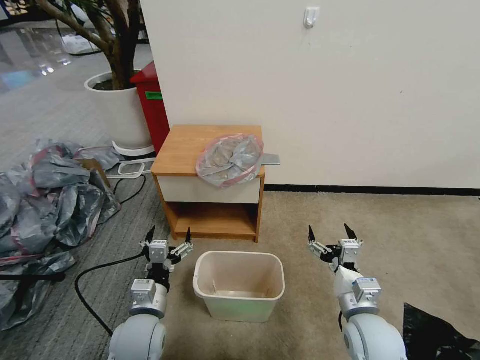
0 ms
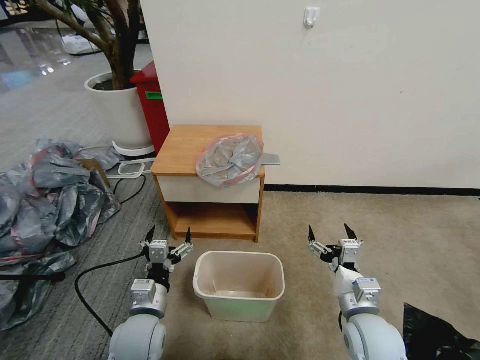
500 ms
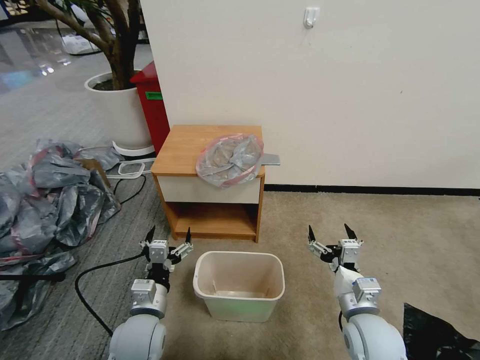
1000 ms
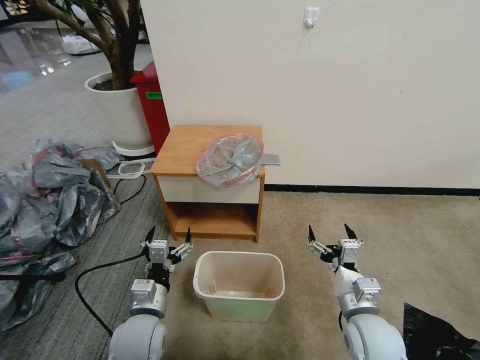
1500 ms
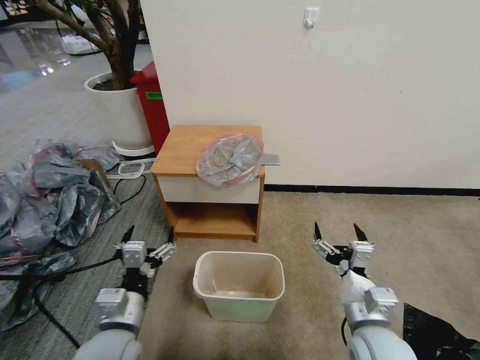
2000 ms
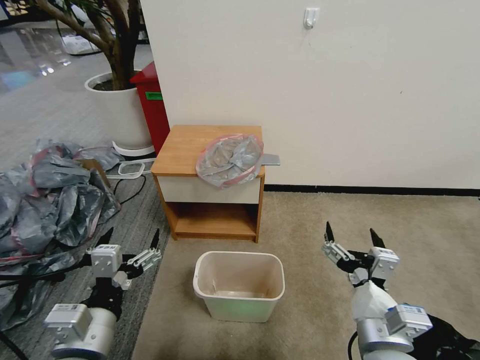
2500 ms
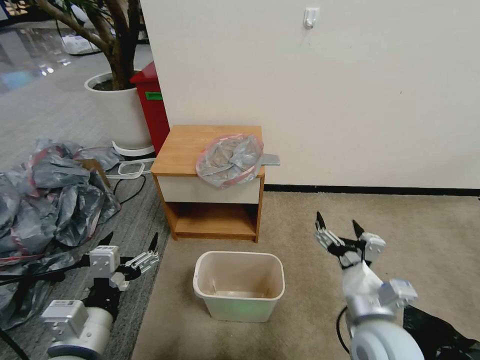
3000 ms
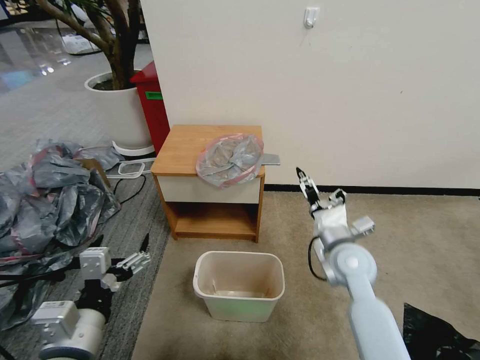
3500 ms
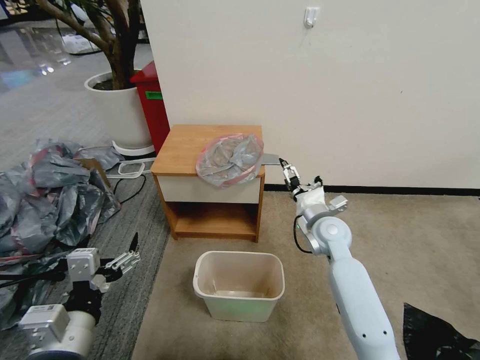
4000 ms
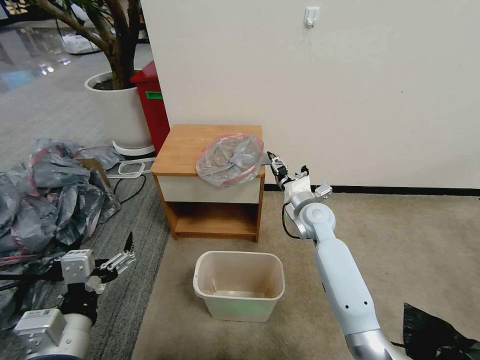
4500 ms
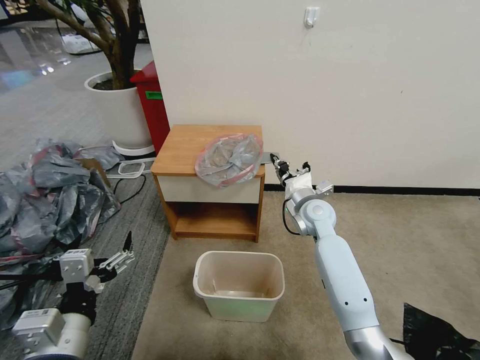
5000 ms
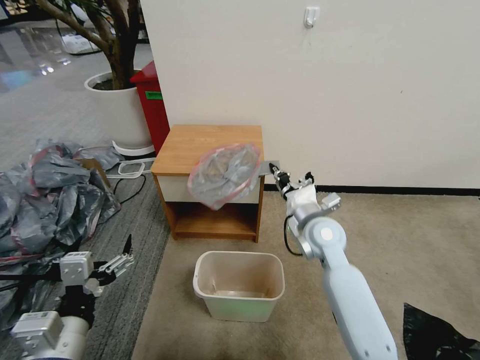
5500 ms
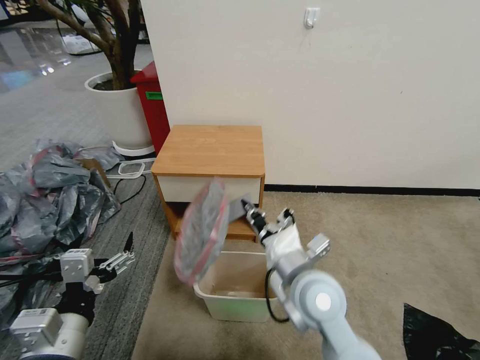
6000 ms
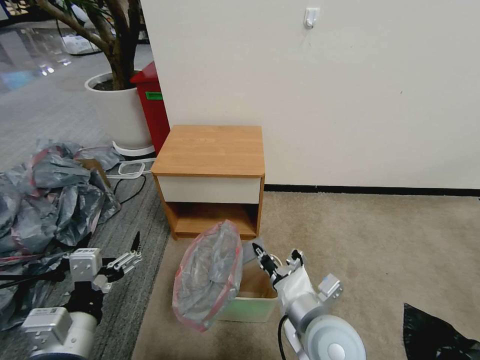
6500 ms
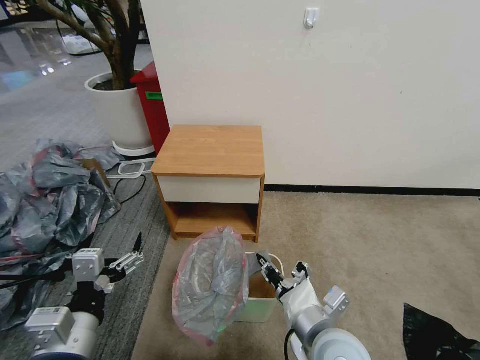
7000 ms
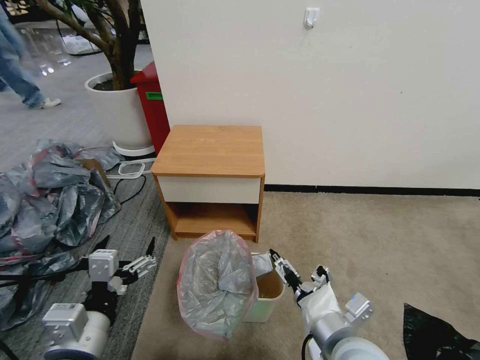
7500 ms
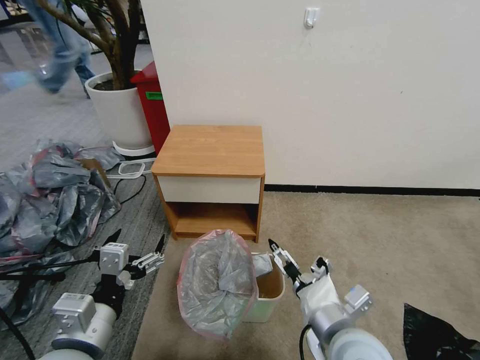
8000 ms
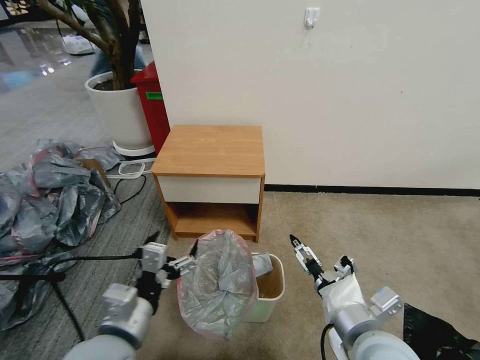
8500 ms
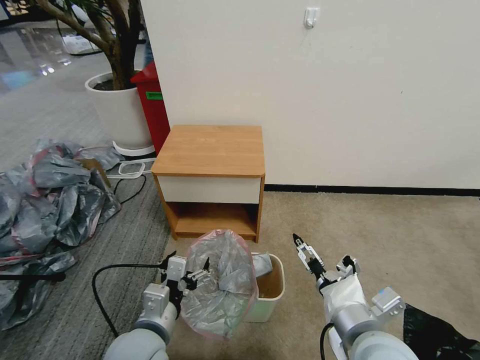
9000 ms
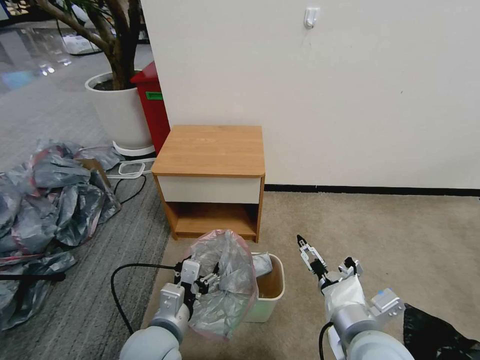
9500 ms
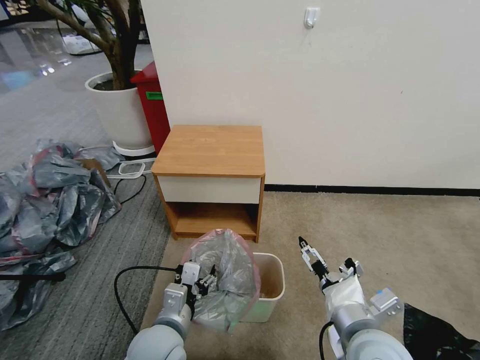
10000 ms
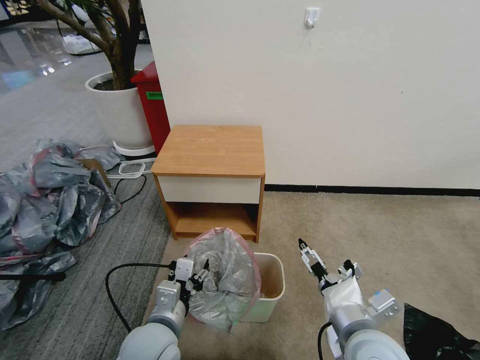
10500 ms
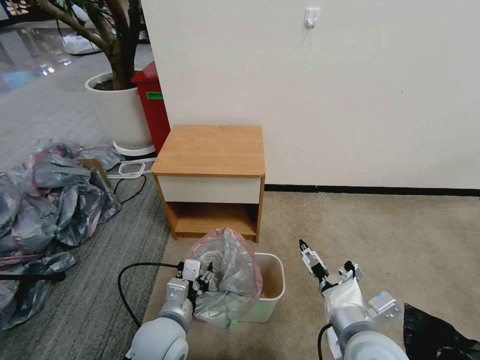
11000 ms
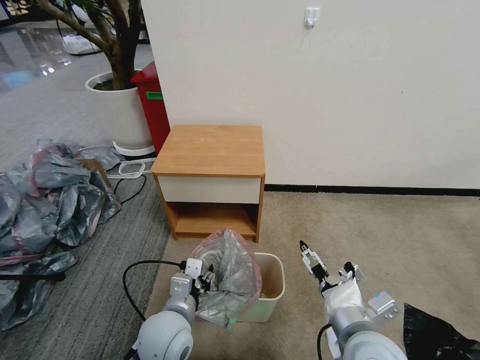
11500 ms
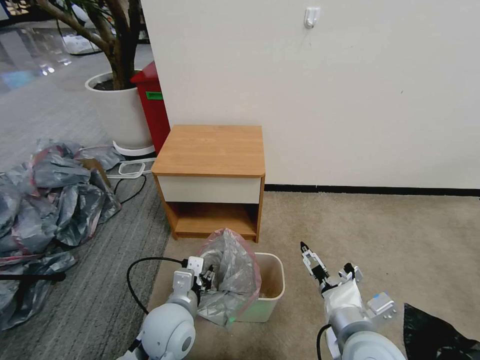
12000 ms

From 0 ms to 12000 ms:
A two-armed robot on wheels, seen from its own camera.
Task of the whole recording: Pick up the garbage bag from the table and place it over the trash can.
From 2000 ms to 4000 ms: The right gripper heads forward, covering roughly 25 cm, while the left gripper is displaced upward and backward by roughly 10 cm.
From 4000 ms to 6000 ms: The right gripper shifts some 20 cm backward and to the left, and closes up.
From 6000 ms to 8000 ms: The right gripper travels backward and to the right by some 10 cm, and opens its fingers.
From 8000 ms to 10000 ms: The left gripper goes some 15 cm downward, to the right and forward.
From 10000 ms to 12000 ms: The grippers stay close to where they were, moving slightly.

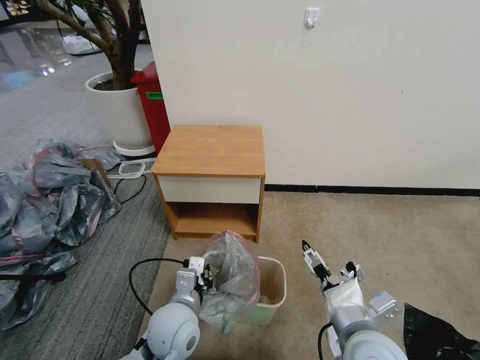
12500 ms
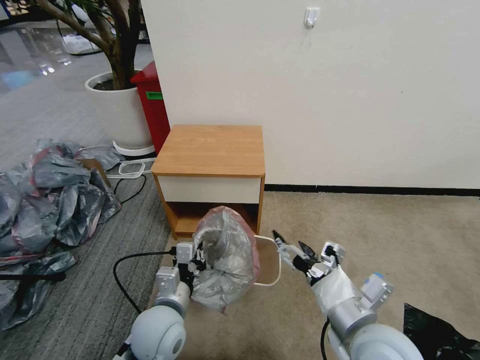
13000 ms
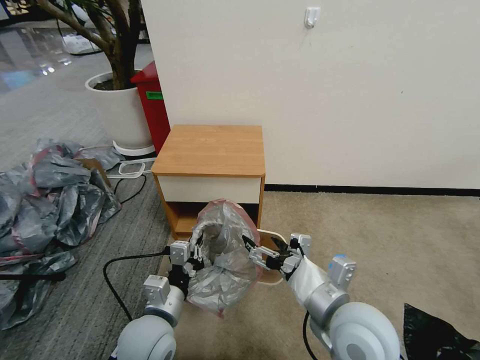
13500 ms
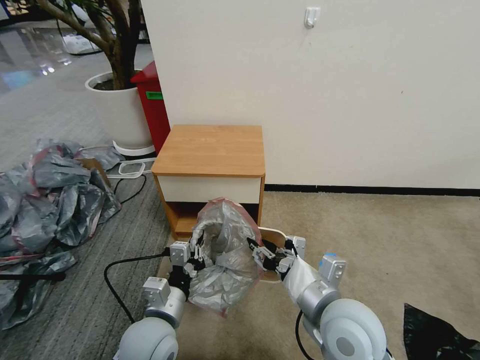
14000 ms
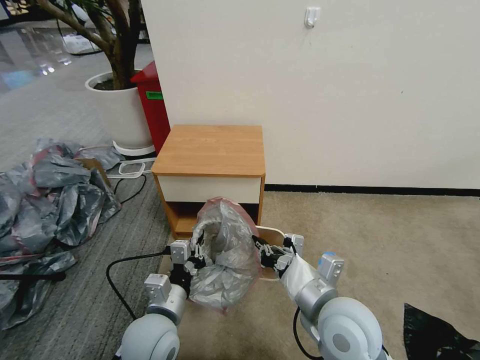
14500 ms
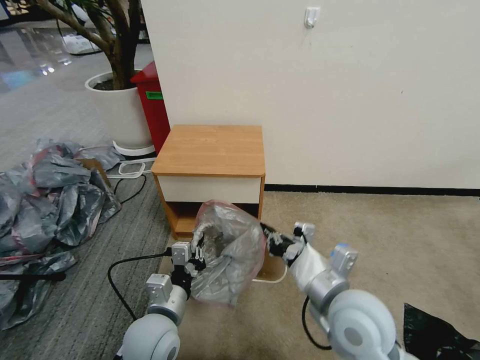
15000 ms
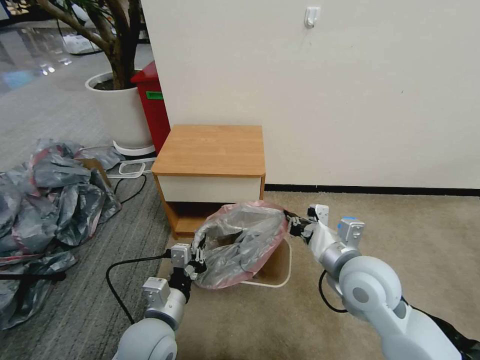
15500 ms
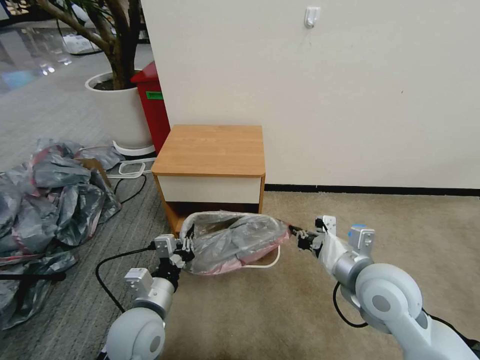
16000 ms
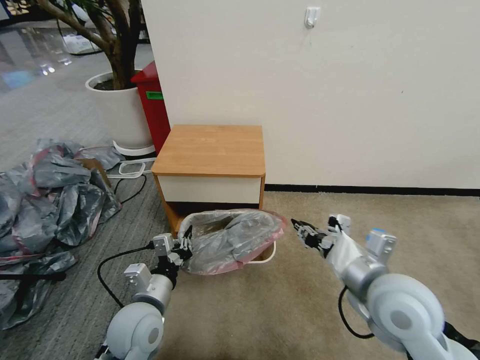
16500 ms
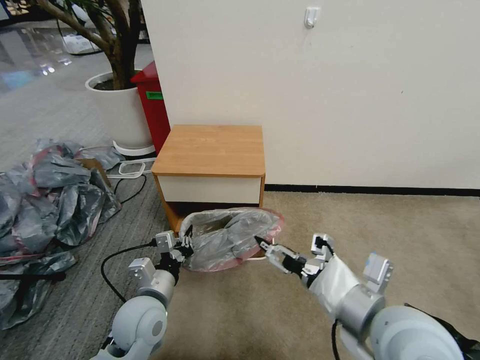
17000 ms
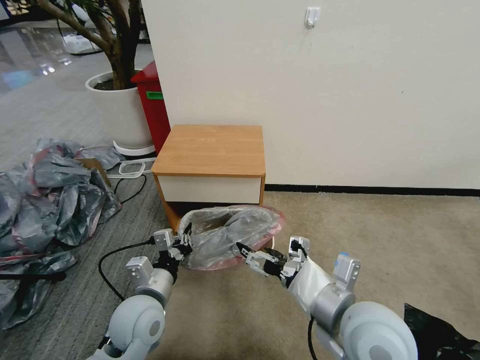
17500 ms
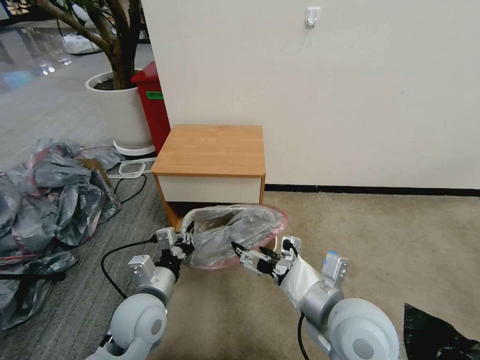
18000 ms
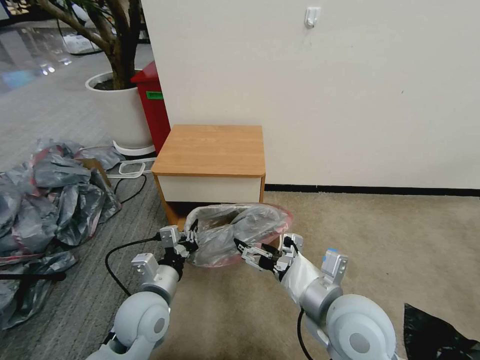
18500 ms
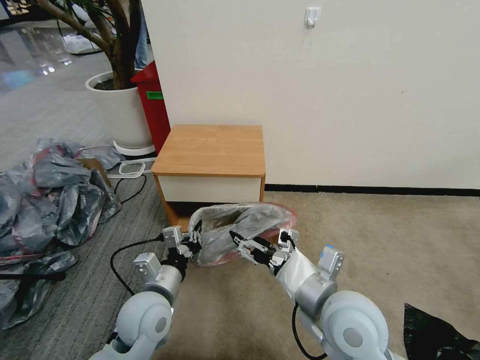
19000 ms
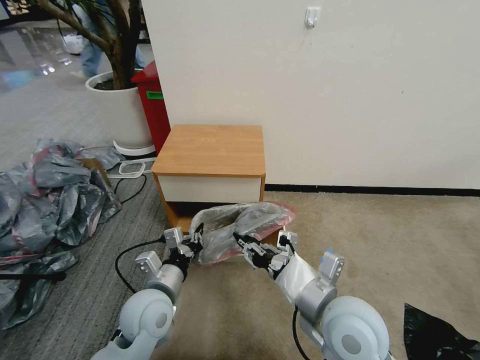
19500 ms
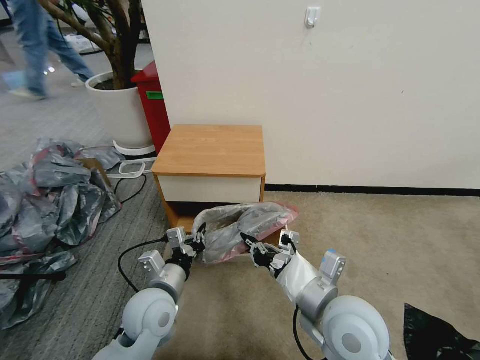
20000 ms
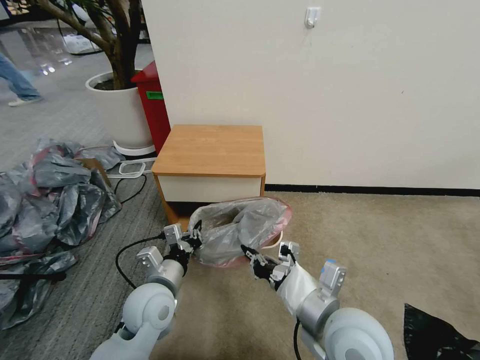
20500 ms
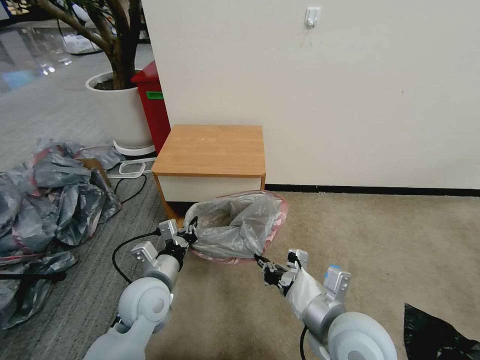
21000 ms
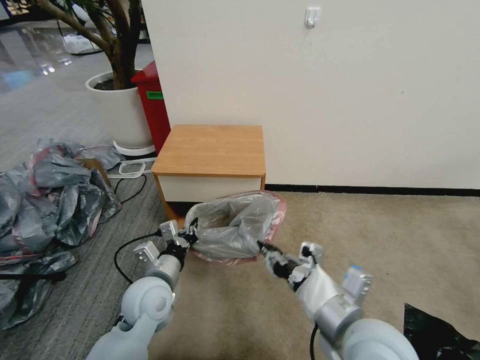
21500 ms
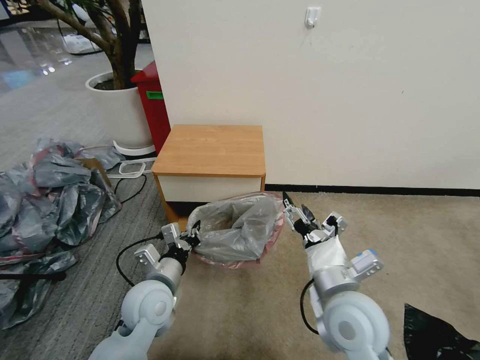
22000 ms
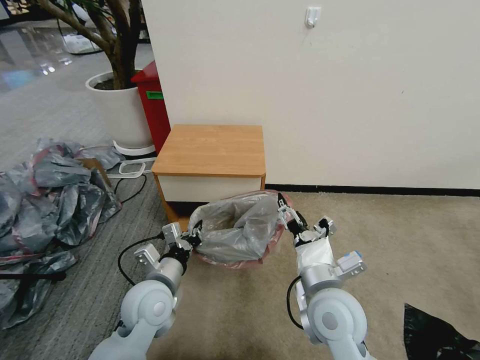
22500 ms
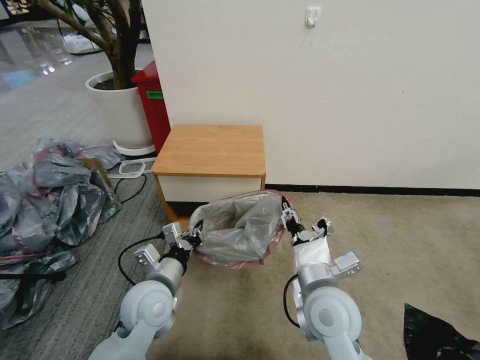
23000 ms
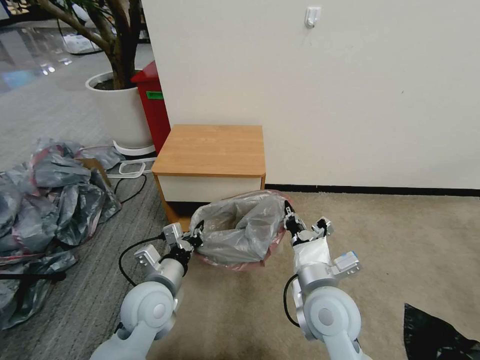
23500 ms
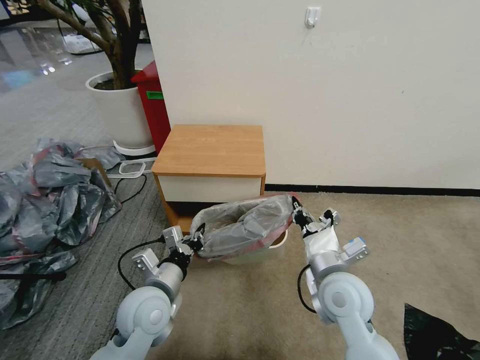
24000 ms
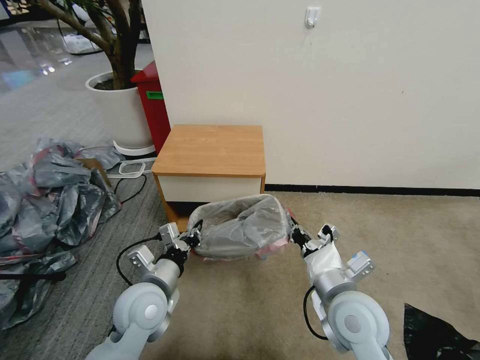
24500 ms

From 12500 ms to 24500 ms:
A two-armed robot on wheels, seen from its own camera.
Task of the whole recording: Pick up the garbage bag from the table and place it over the trash can.
From 12500 ms to 14500 ms: The right gripper shifts by some 5 cm, and closes up.
From 14500 ms to 16500 ms: The right gripper is displaced to the right by about 5 cm.
From 16500 ms to 18500 ms: The right gripper is displaced to the left by about 5 cm, and opens its fingers.
From 18500 ms to 20500 ms: The right gripper closes its fingers.
From 20500 ms to 22500 ms: The right gripper changes place by about 5 cm, and opens up.
From 22500 ms to 24500 ms: The right gripper closes.

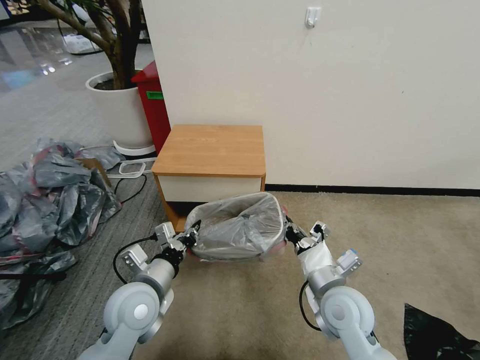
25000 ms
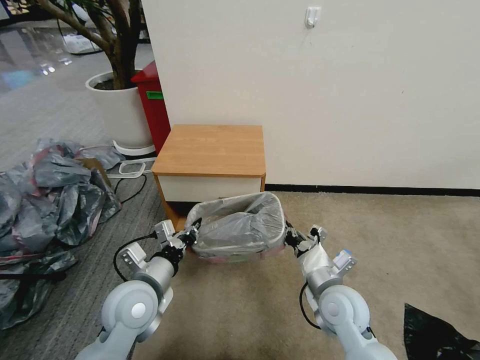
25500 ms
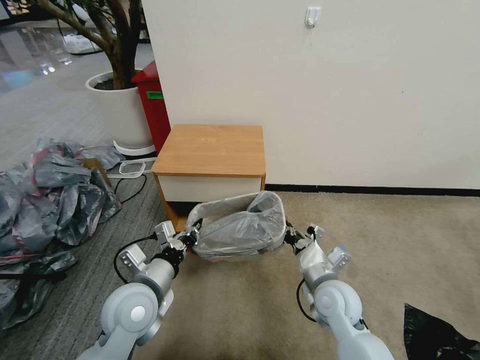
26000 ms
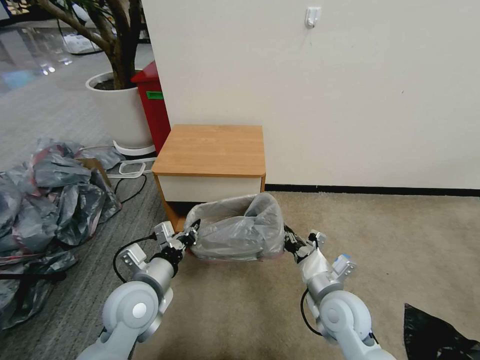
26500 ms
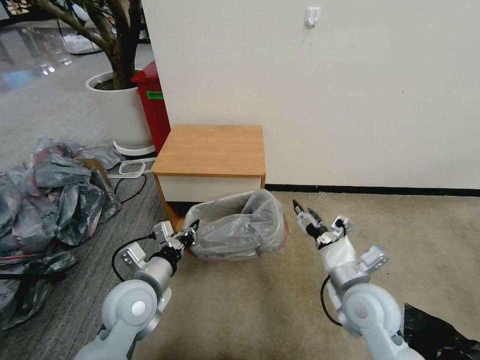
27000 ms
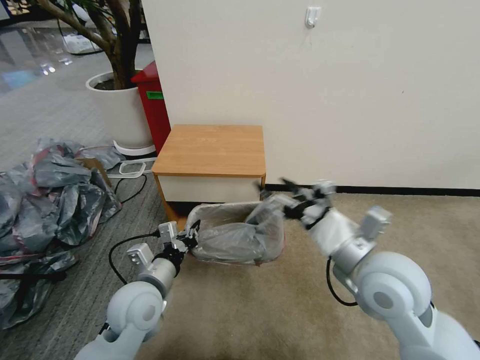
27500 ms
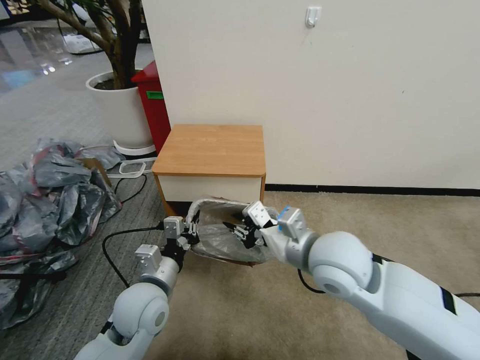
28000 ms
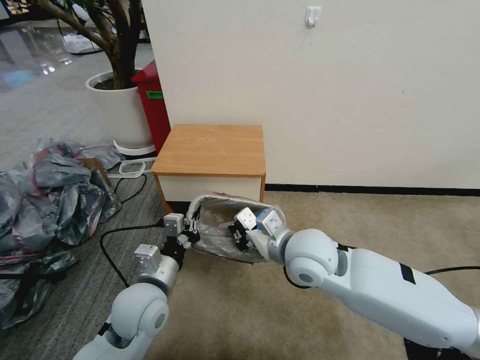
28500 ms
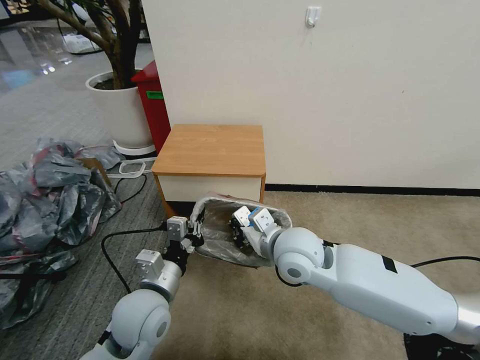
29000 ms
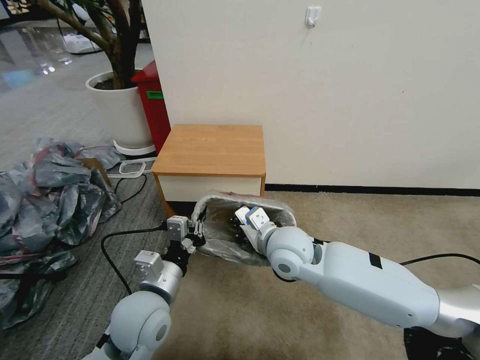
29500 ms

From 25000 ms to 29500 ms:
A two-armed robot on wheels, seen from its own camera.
Task of the whole recording: Pick up the garbage bag from the table and place it over the trash can.
From 25000 ms to 27000 ms: The right gripper opens up.
From 27000 ms to 29500 ms: The right gripper goes some 15 cm to the left and forward, and closes up.
